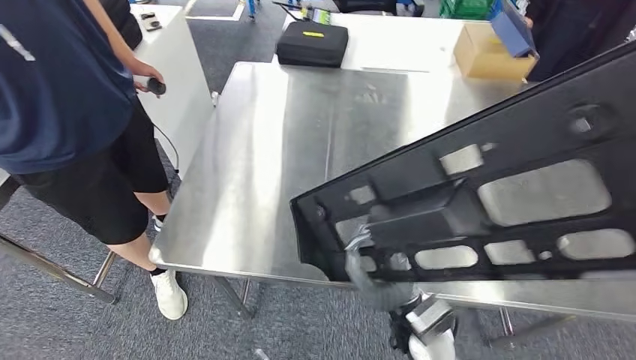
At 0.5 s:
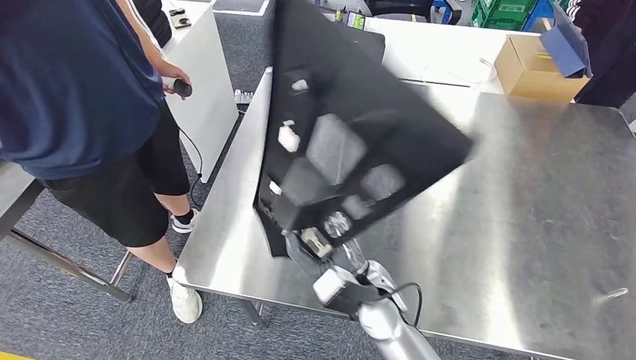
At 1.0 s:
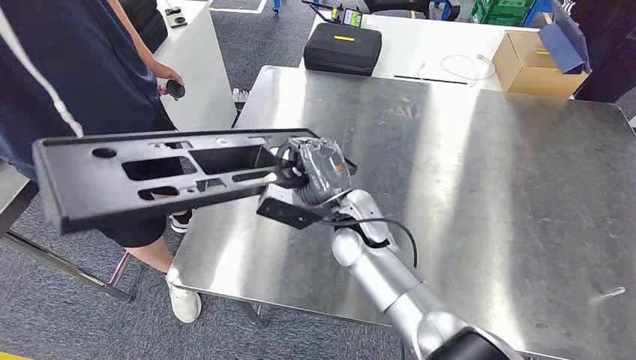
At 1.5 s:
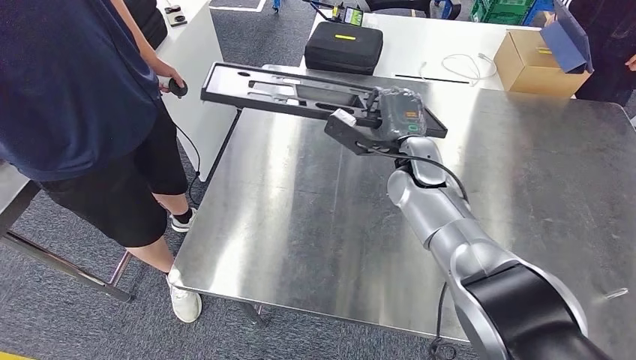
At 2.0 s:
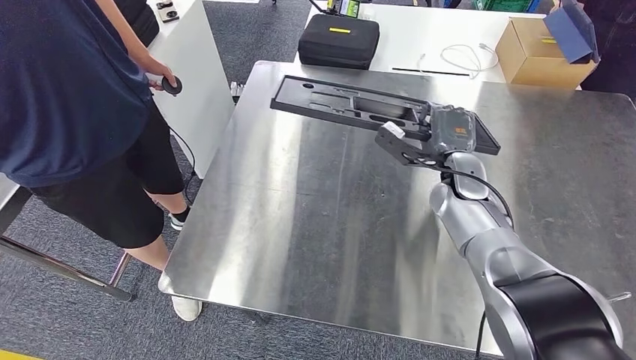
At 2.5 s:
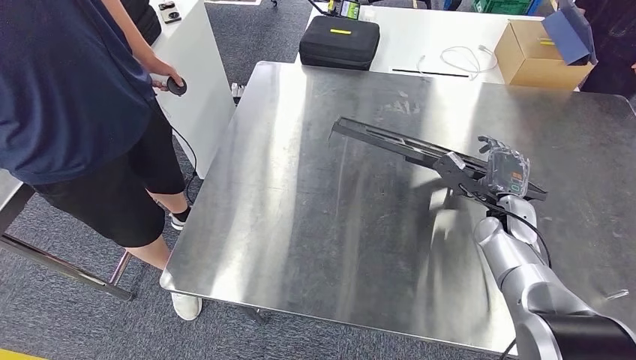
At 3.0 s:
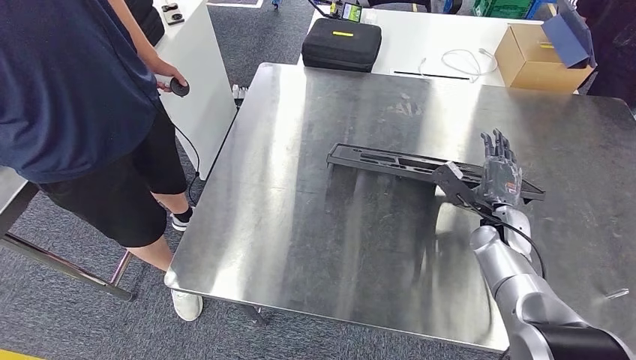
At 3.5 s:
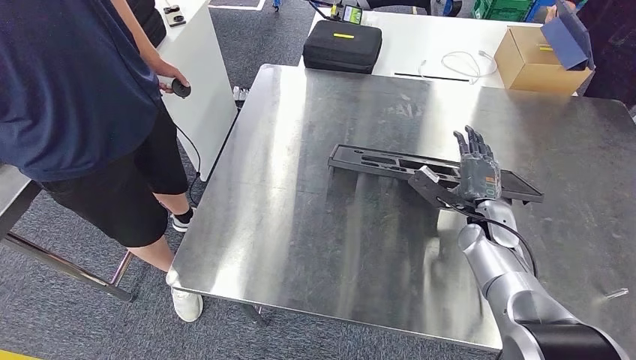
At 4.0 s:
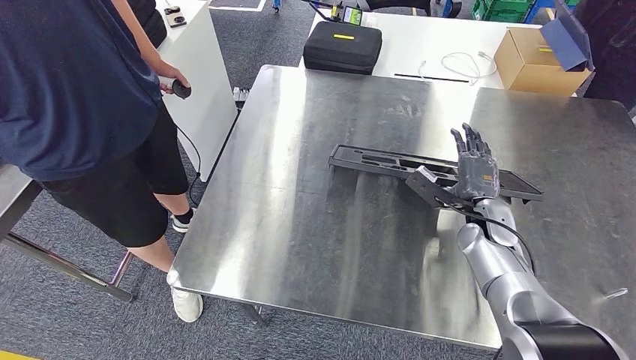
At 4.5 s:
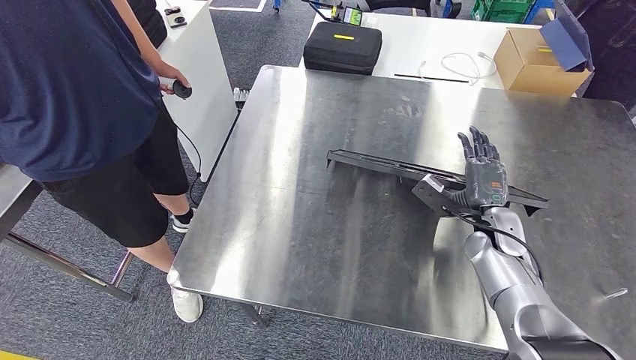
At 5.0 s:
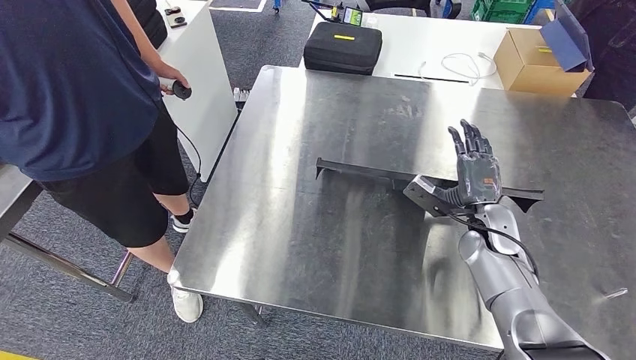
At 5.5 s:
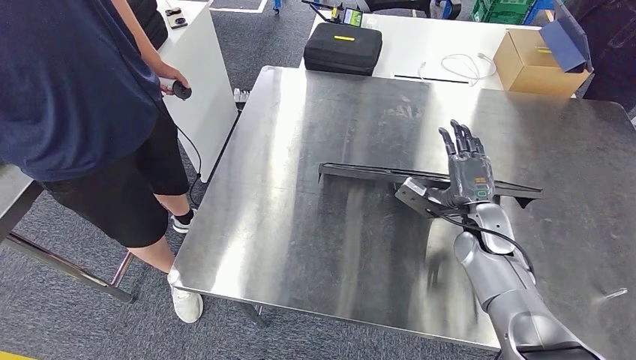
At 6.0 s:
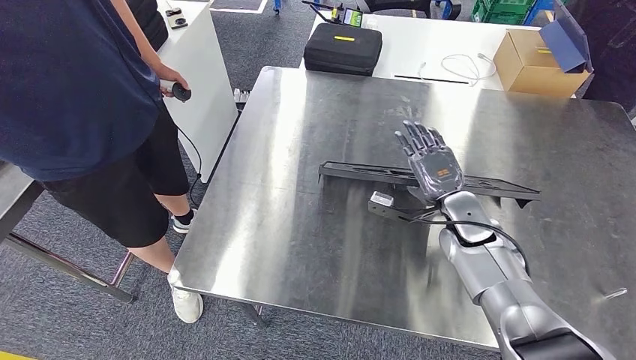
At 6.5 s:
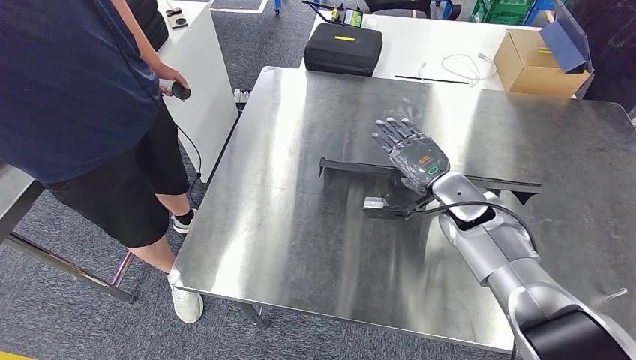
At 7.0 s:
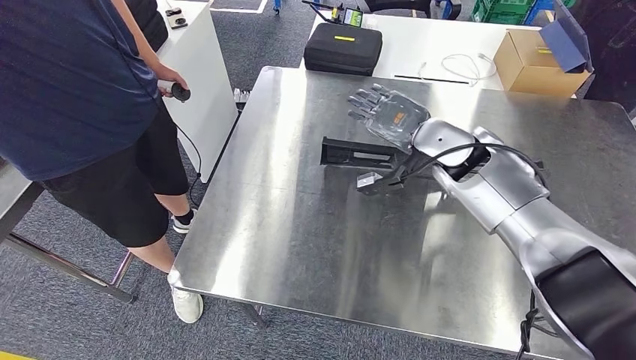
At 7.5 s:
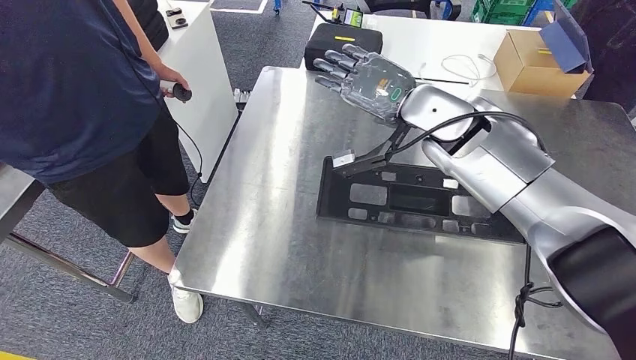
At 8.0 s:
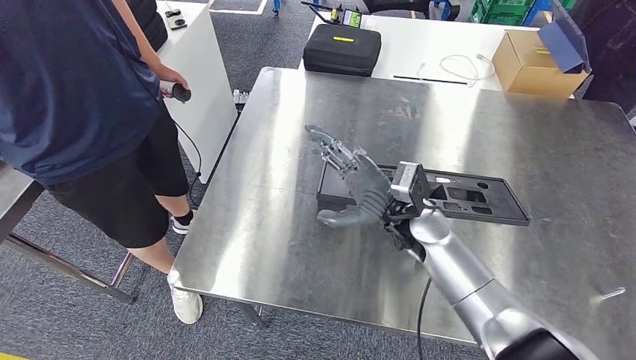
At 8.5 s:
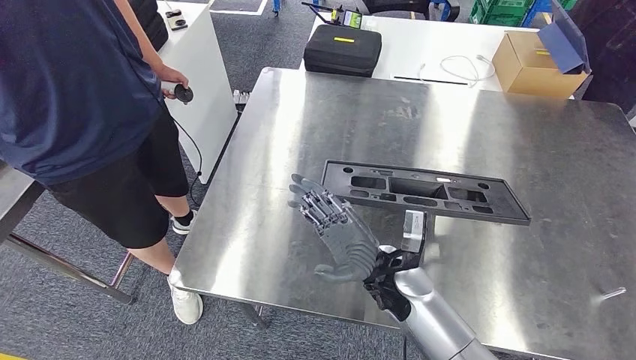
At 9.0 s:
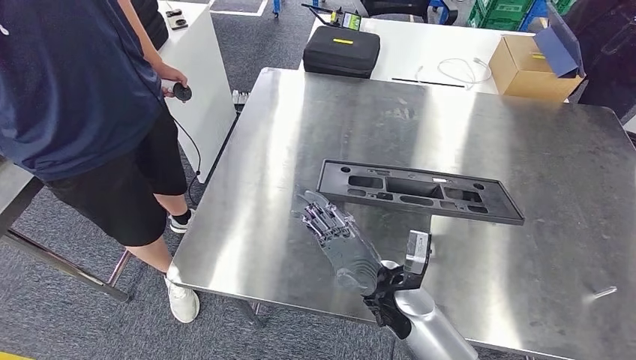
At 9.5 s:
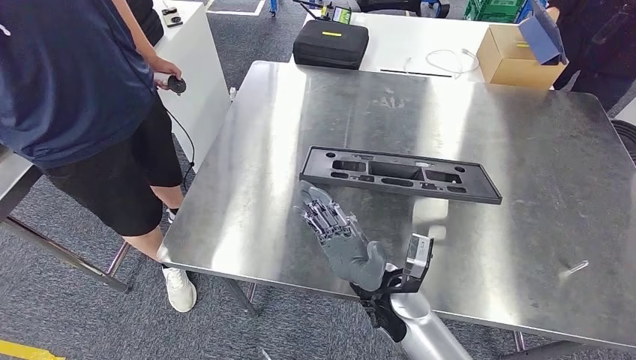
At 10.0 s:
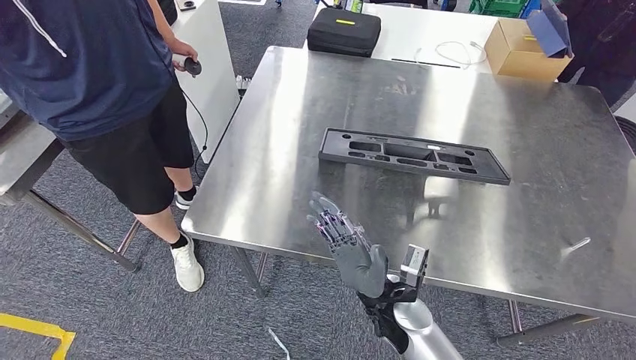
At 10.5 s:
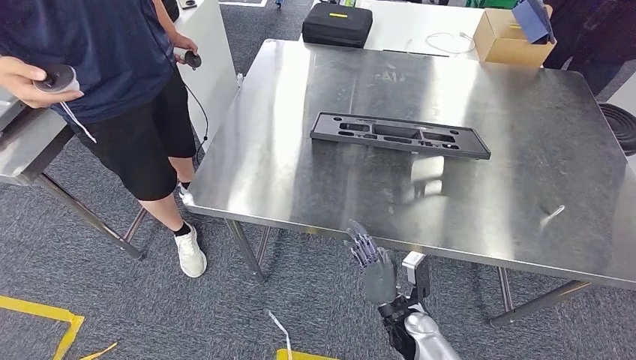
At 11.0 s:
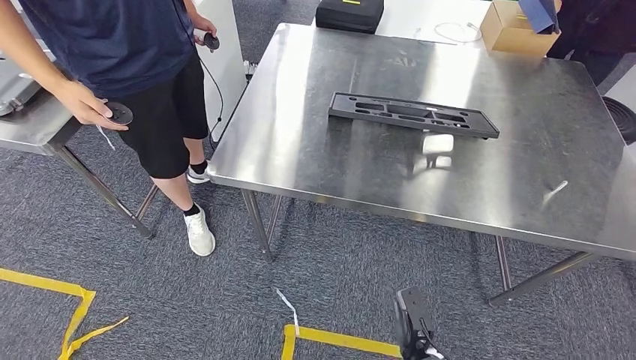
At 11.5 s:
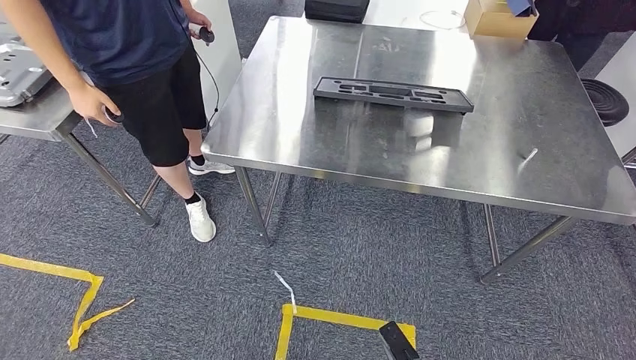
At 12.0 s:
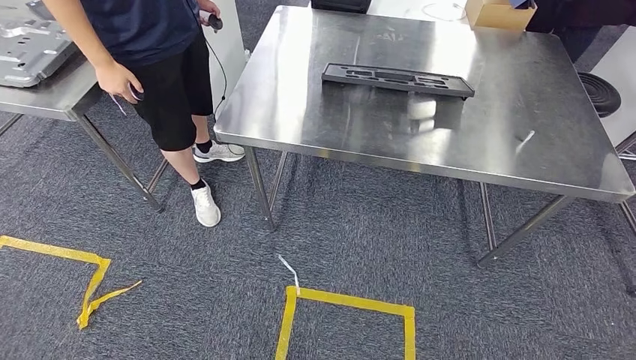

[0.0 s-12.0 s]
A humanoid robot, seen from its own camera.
Step, 0.0 to 11.5 s: Insert the large material into the corresponding hole on the workbench.
4.0 to 6.0 s: The right hand shifts about 5 cm to the left.
6.0 to 8.0 s: The right hand heads to the left, covering approximately 10 cm, and goes upward and returns, about 20 cm each way.

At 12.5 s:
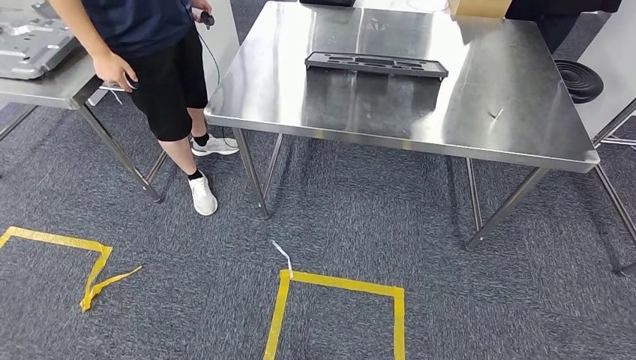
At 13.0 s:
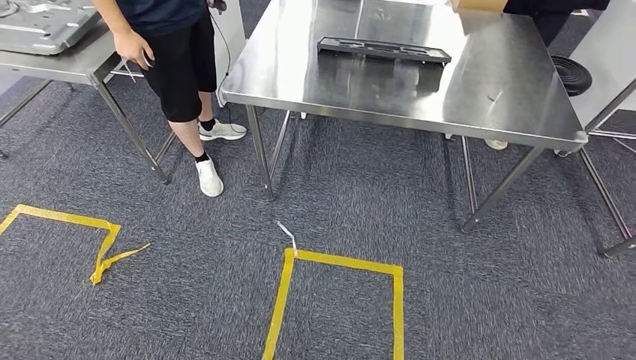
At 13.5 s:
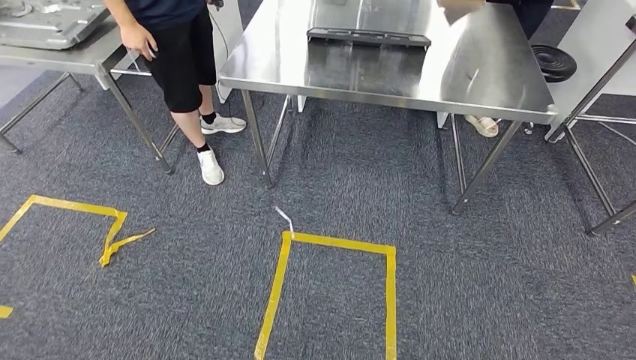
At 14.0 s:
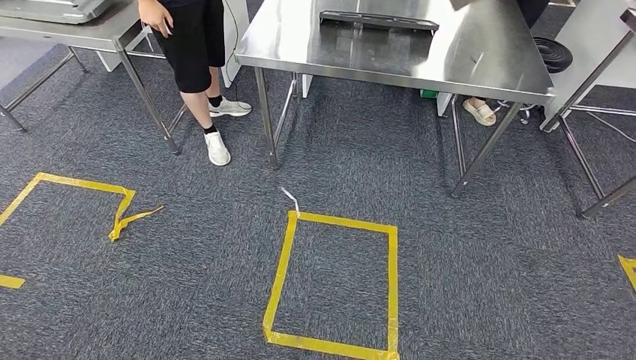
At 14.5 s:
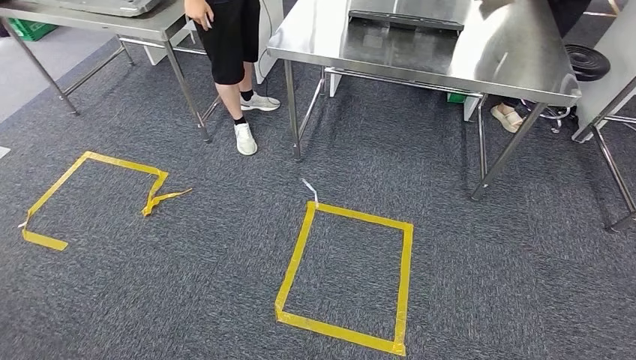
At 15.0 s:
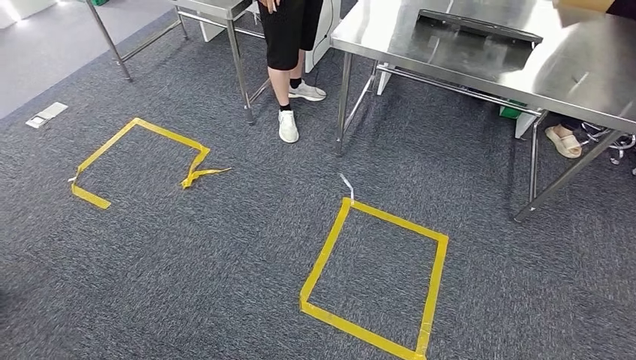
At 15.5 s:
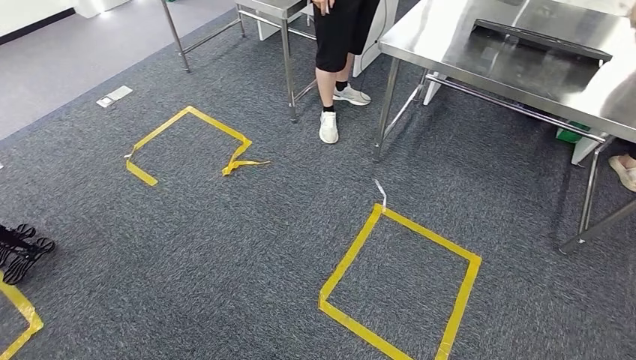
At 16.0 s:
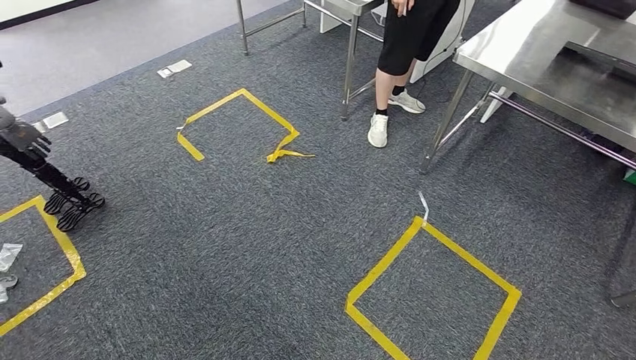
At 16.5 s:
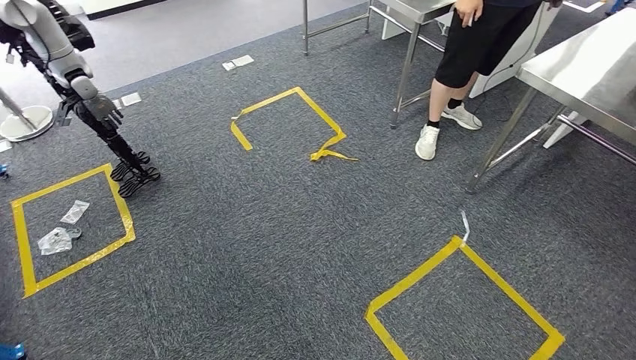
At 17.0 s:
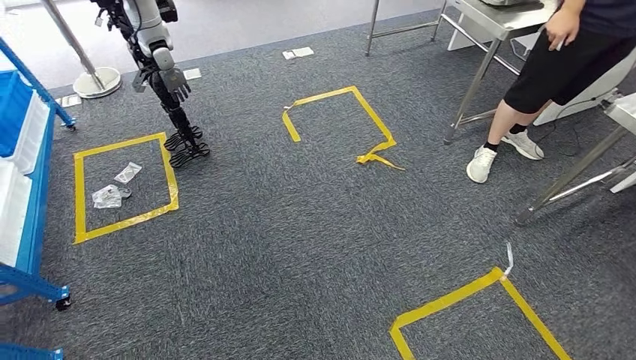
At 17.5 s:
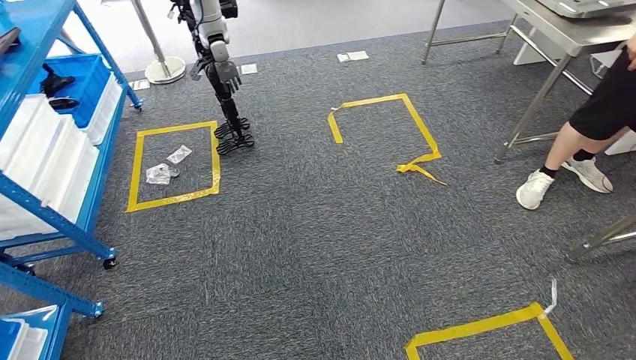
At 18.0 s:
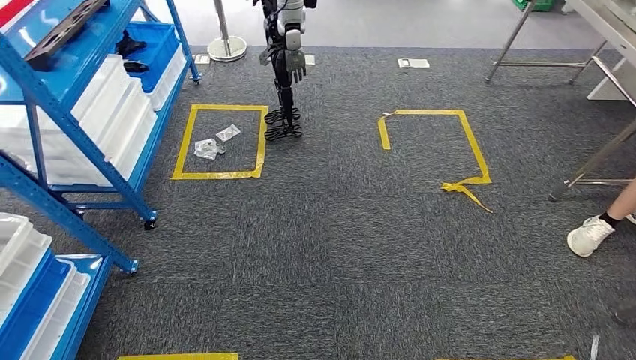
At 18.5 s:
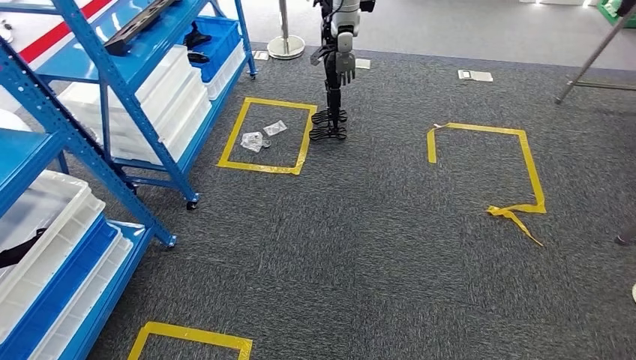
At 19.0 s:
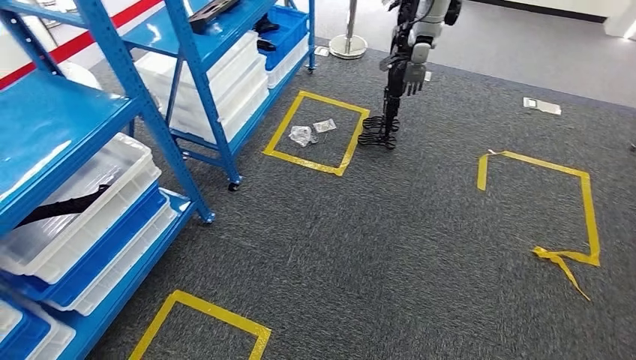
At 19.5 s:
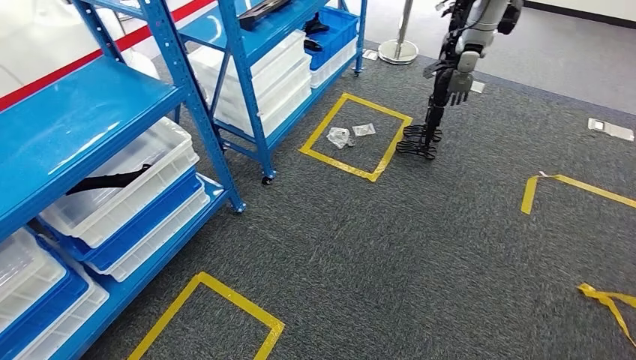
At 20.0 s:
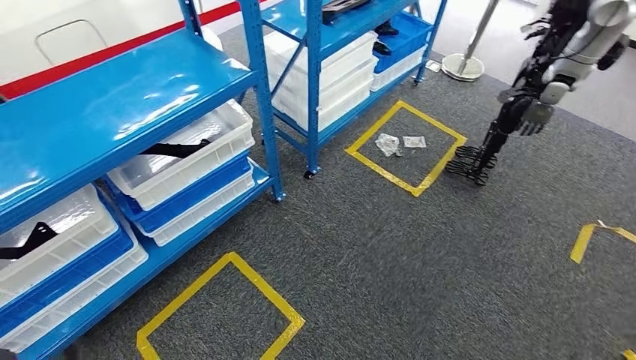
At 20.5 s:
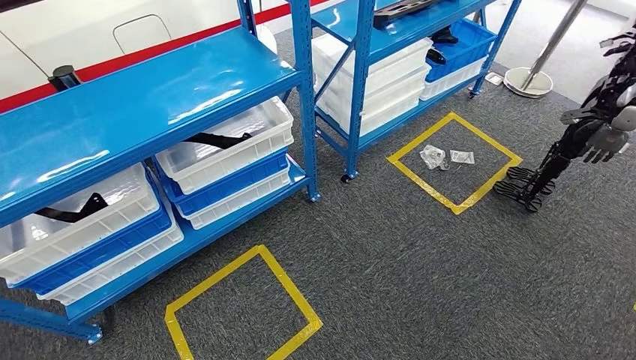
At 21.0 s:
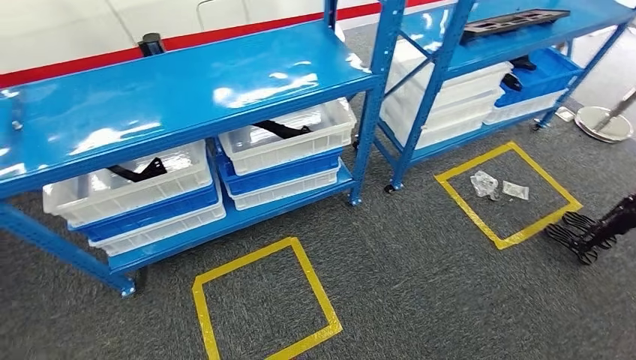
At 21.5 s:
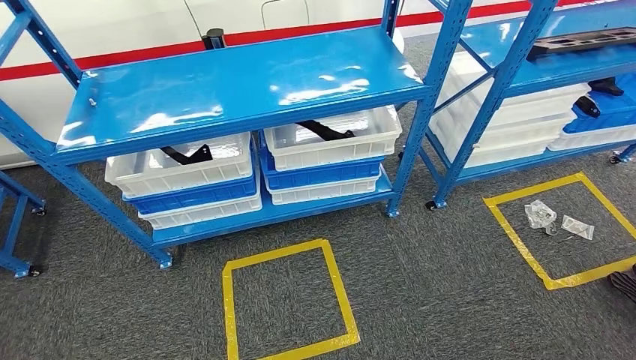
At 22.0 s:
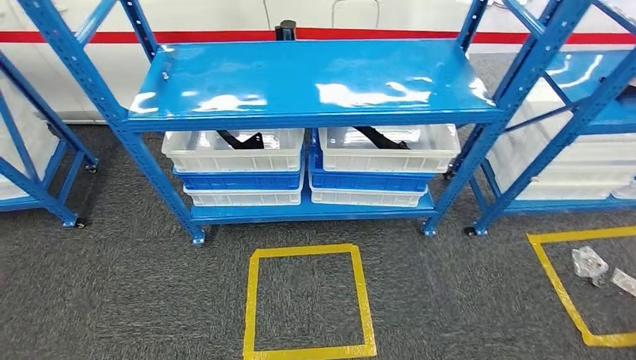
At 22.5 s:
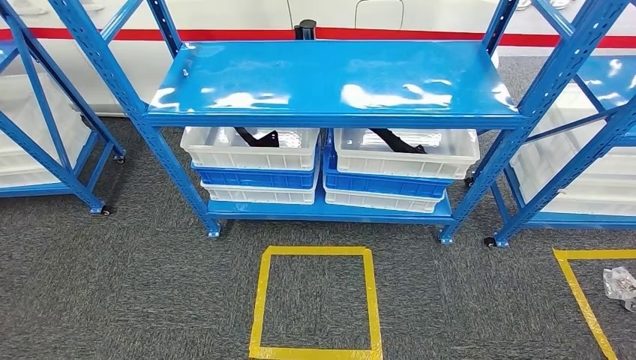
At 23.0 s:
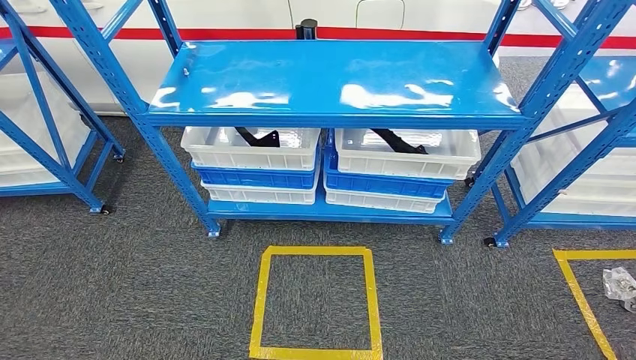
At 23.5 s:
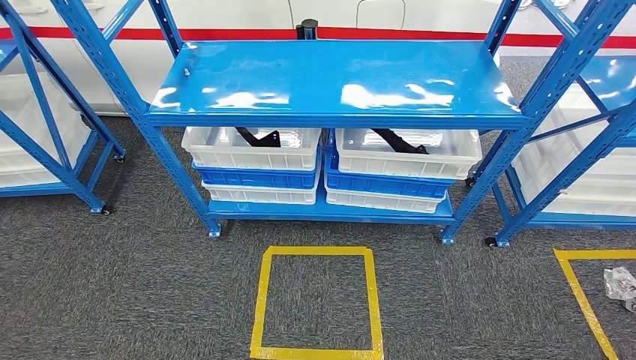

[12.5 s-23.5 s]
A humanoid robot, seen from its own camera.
Step, 12.5 to 23.5 s: Move to the initial position of the shelf.
